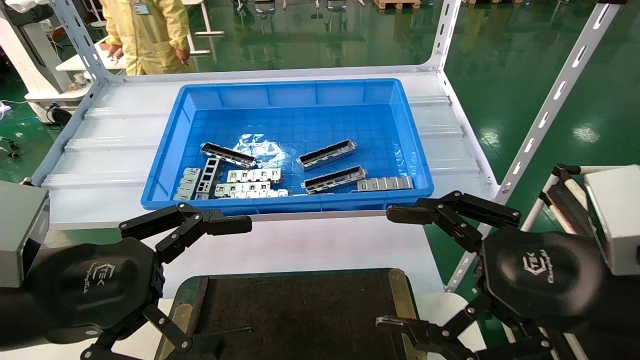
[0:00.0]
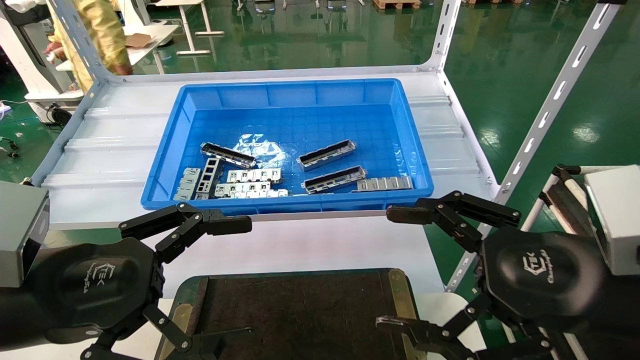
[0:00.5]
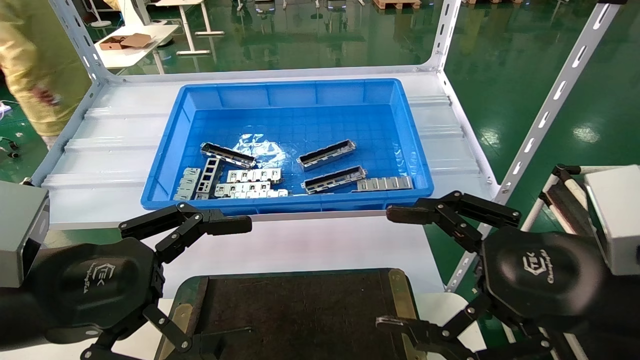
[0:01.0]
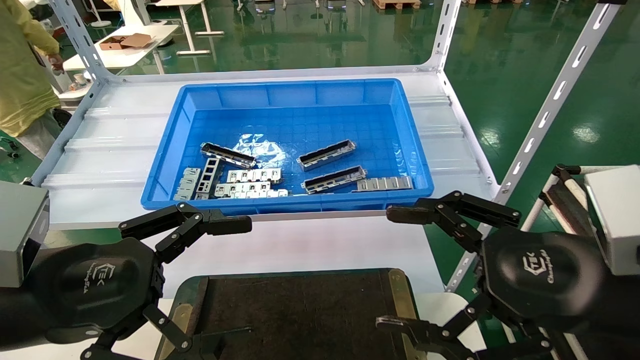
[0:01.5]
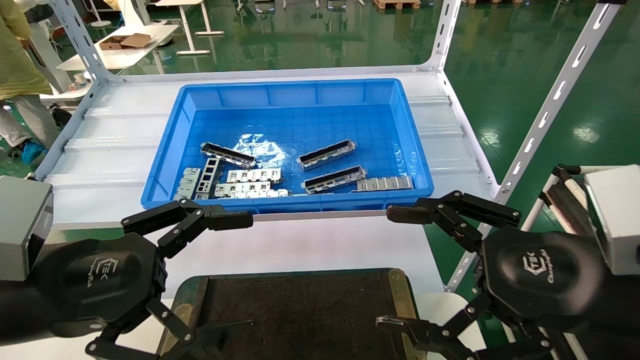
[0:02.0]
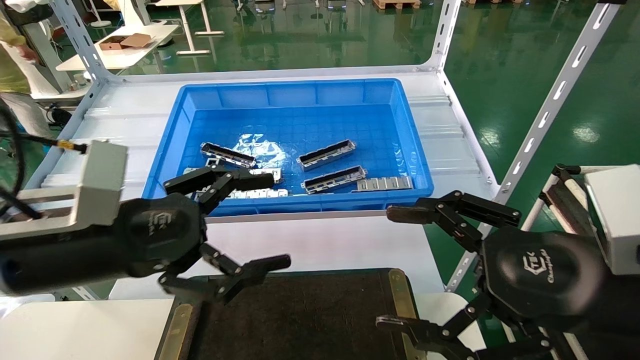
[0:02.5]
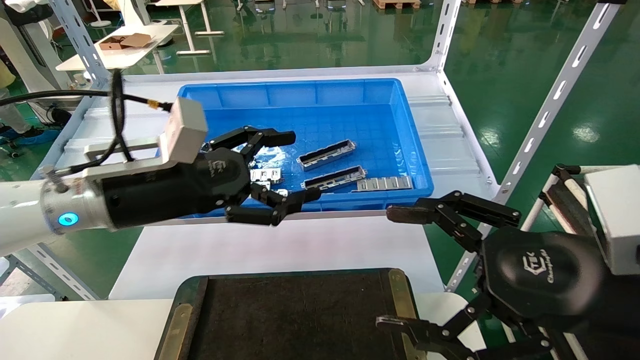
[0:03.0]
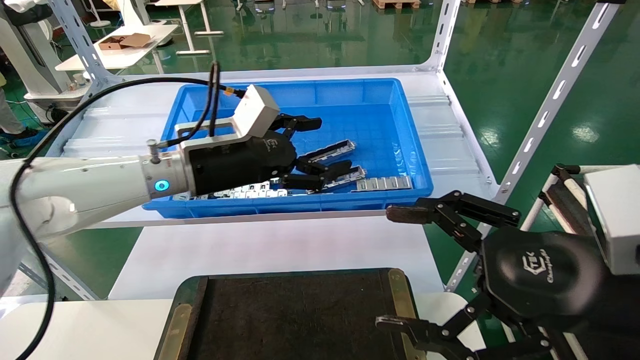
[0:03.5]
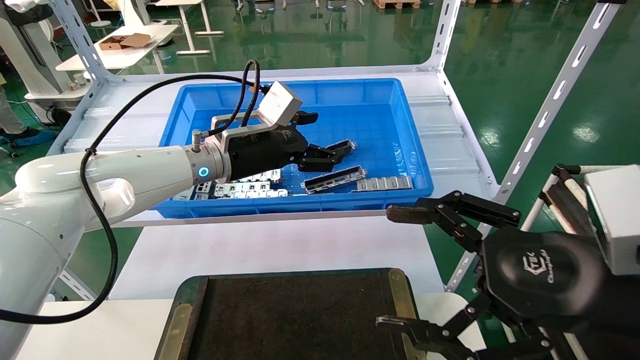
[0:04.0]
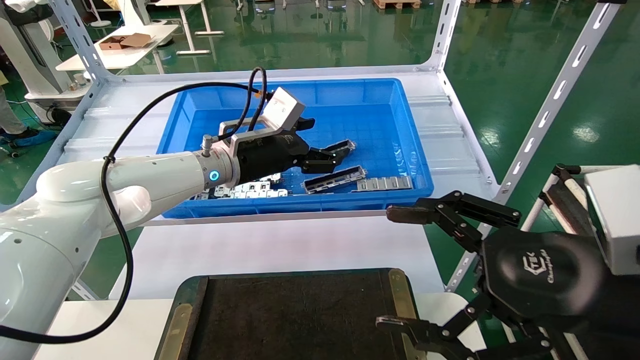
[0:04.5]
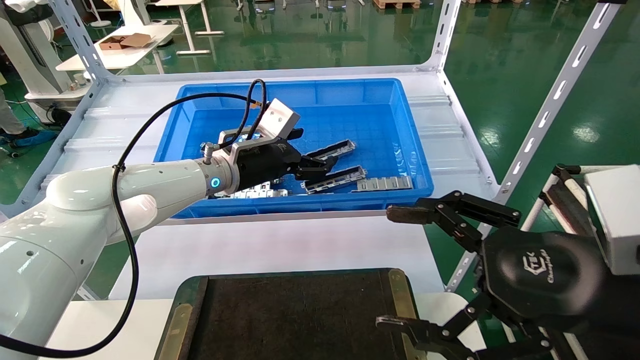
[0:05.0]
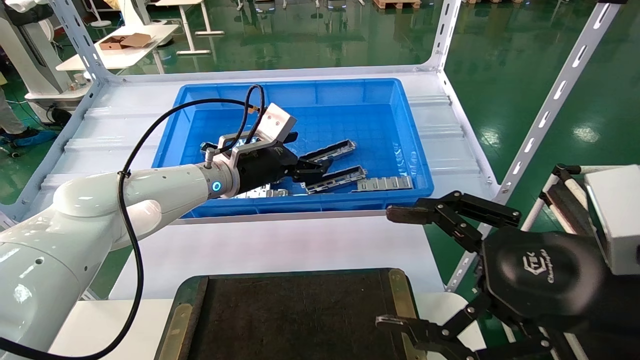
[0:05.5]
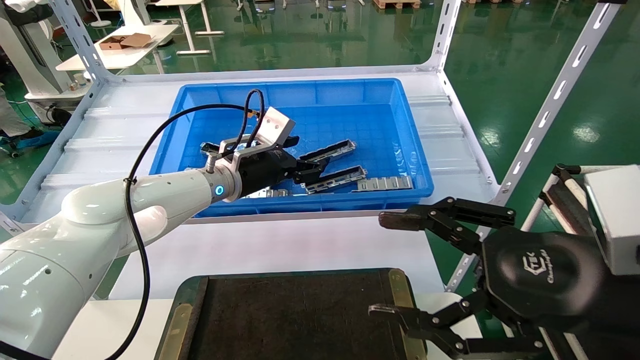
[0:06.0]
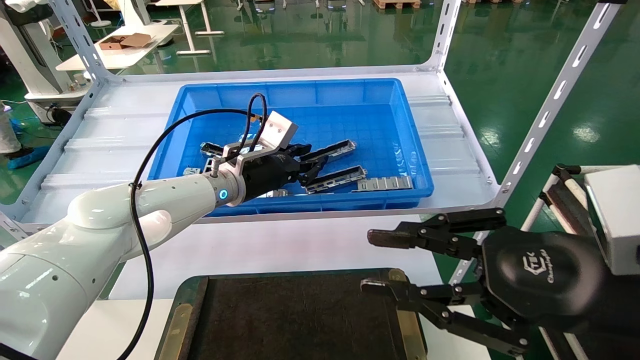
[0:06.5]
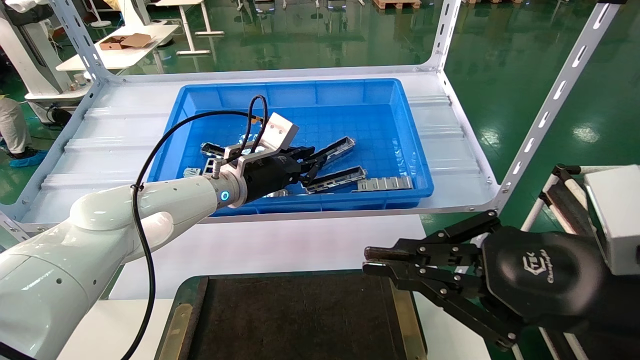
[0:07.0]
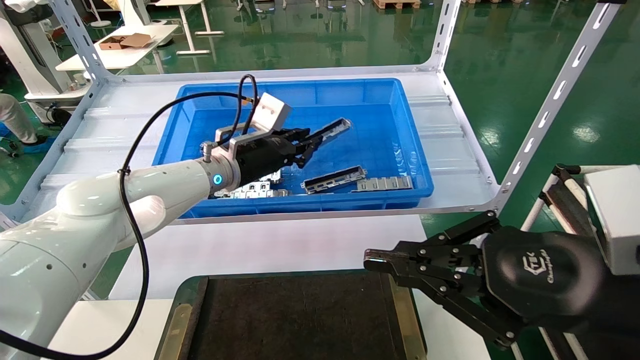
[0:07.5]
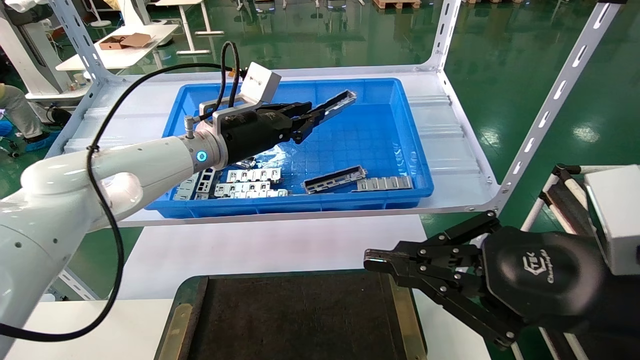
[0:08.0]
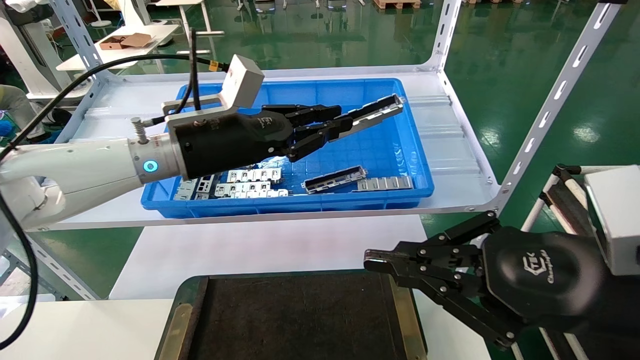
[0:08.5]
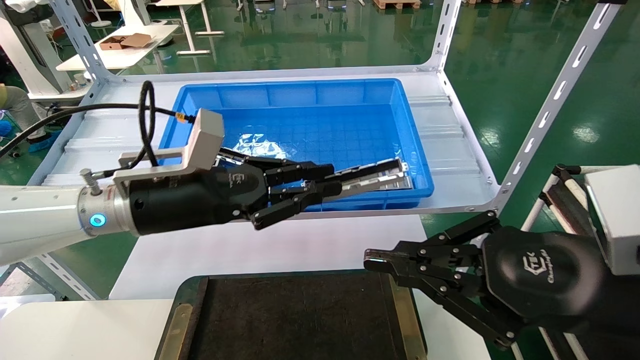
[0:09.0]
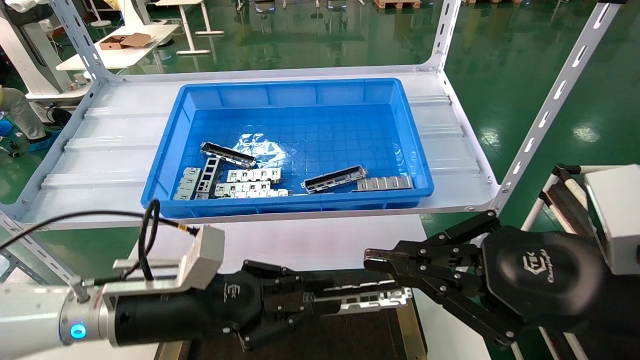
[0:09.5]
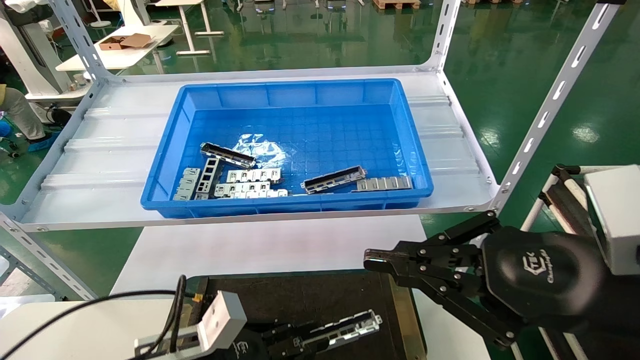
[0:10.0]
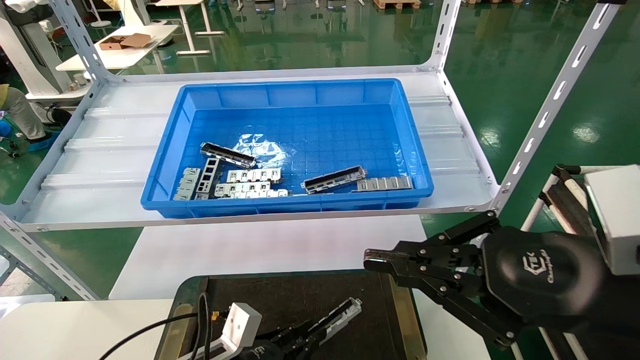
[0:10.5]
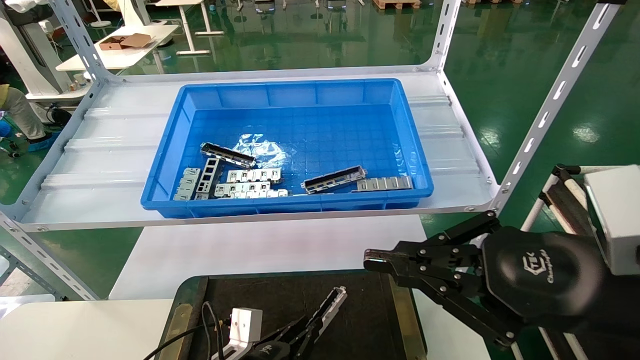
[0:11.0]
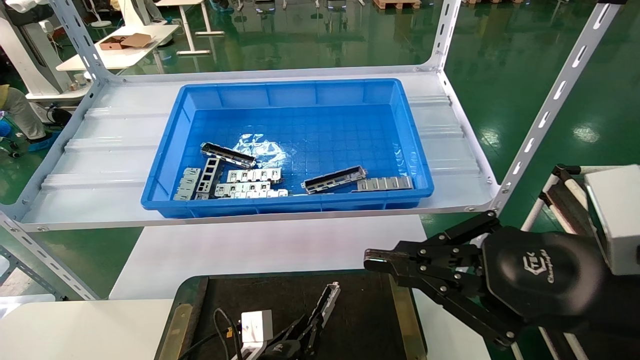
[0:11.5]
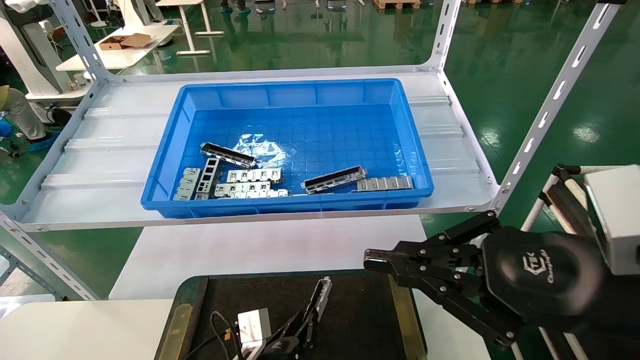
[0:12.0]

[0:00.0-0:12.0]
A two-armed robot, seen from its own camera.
Task of the whole recording: Grasp the part with one hand and place it on the black container.
Step, 0:02.5 to 0:06.5: Pick up the front USB bracket from the feeding area.
0:00.0 to 0:02.0: Both grippers stay about where they are.
0:02.0 to 0:04.0: The left gripper goes roughly 30 cm forward and to the right.
0:04.0 to 0:06.0: The left gripper changes place by approximately 5 cm.
0:06.0 to 0:08.0: The right gripper closes its fingers; the left gripper goes approximately 5 cm upward, and closes its fingers.
0:08.0 to 0:10.0: The left gripper heads downward and backward, covering some 30 cm.
0:10.0 to 0:12.0: The left gripper heads downward and to the right, covering approximately 15 cm.

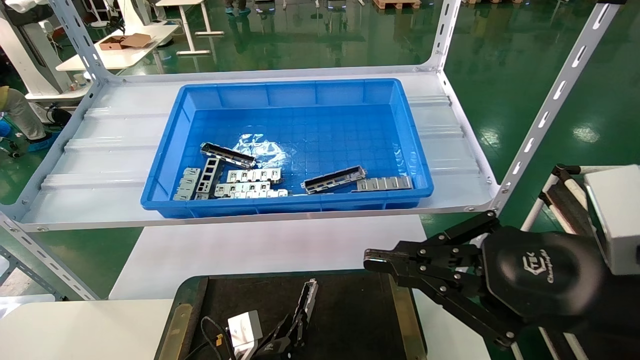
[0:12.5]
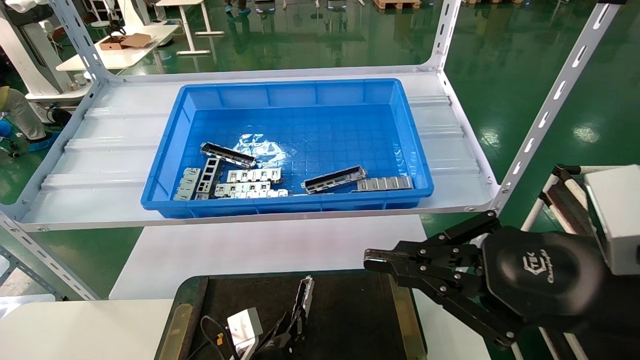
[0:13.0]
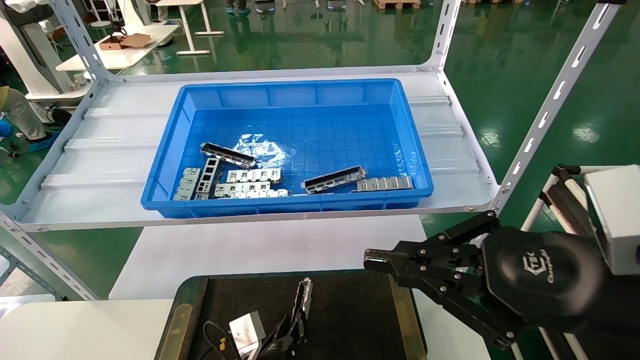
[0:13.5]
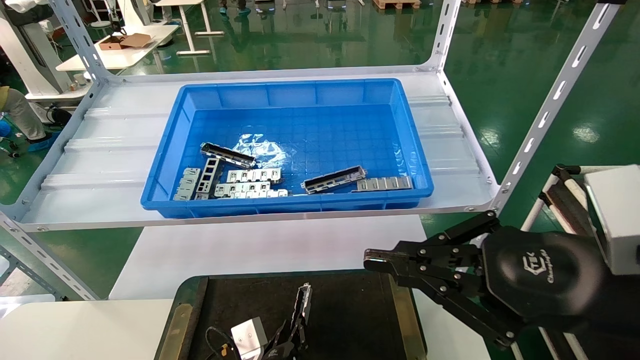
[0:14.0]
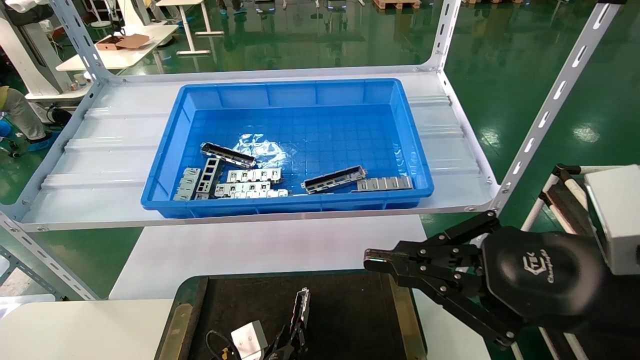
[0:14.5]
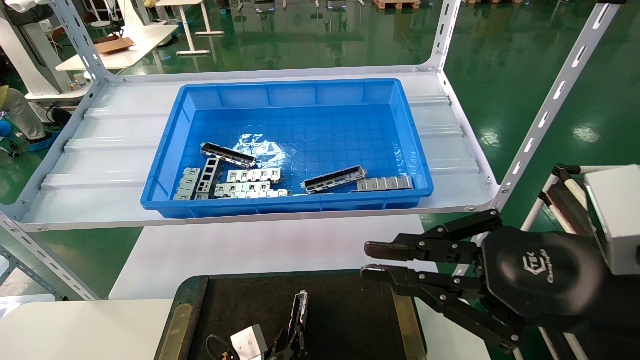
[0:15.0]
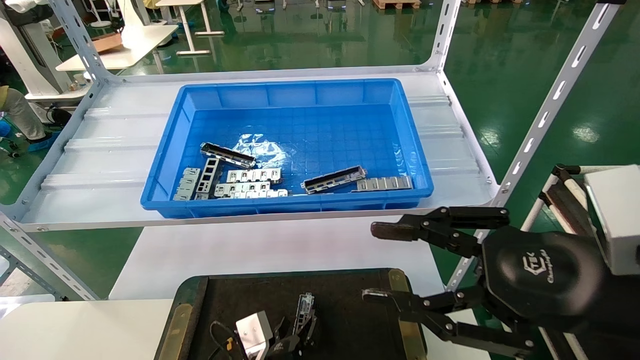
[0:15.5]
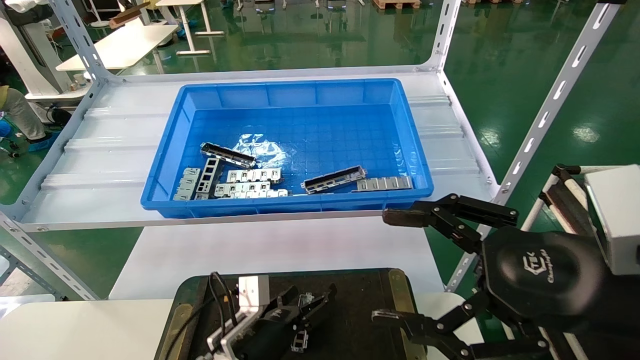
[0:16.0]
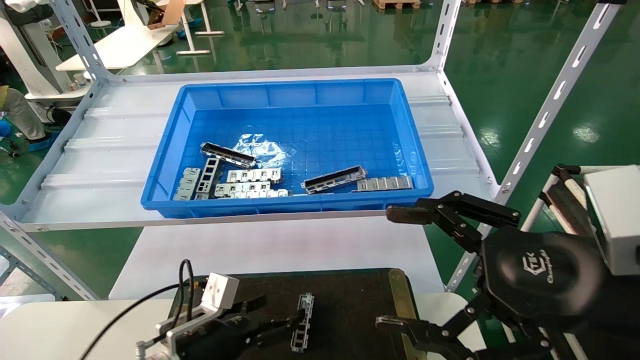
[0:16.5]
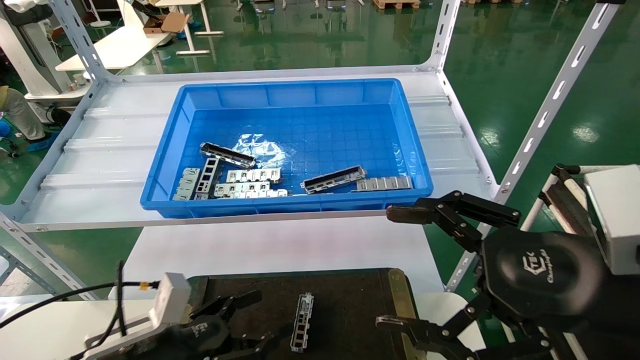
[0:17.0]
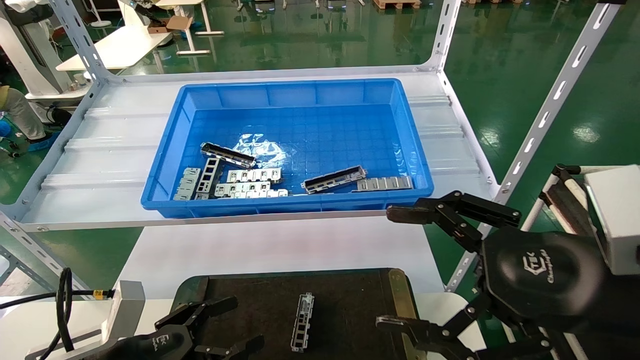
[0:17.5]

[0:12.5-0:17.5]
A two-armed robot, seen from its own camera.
Task of the whole recording: Grasp the part with one hand and place it on the black container.
Step, 0:12.5 to 0:15.0: Place the front USB bracket into the box.
0:12.5 to 0:15.0: The grippers make only small movements.
0:15.0 to 0:17.5: The left gripper goes some 25 cm to the left and upward, and opens up. Meanwhile the right gripper opens its fingers.
